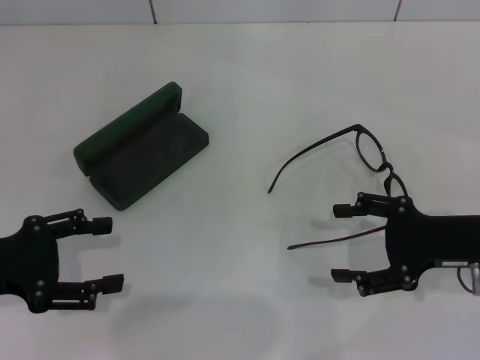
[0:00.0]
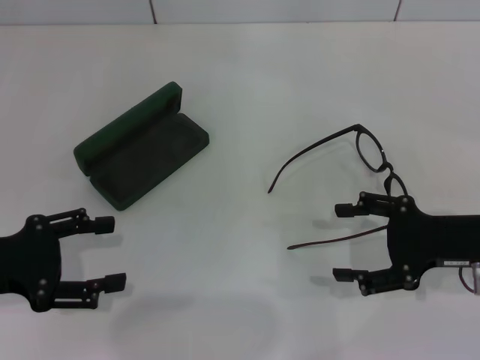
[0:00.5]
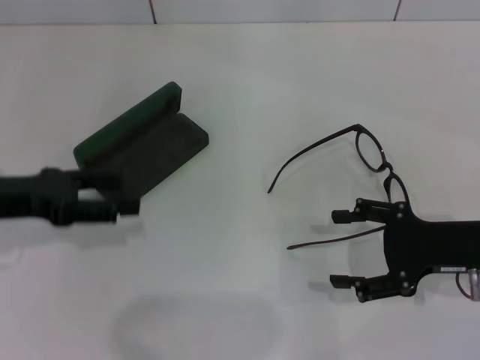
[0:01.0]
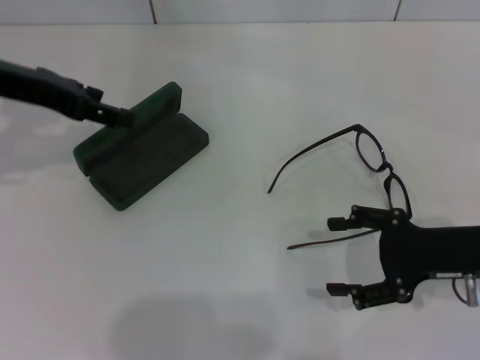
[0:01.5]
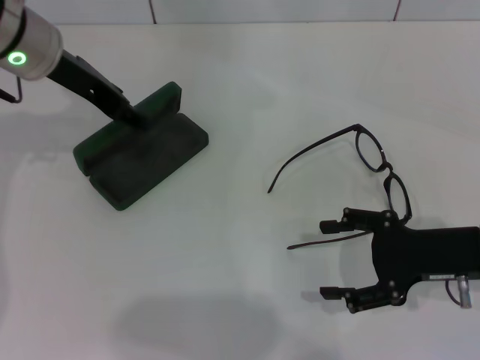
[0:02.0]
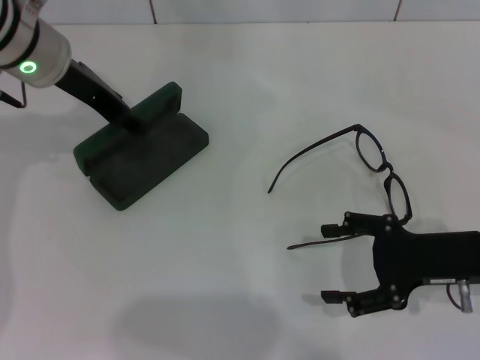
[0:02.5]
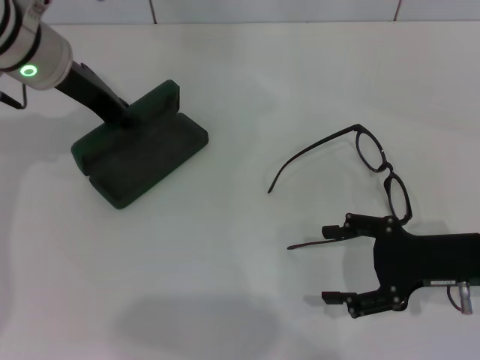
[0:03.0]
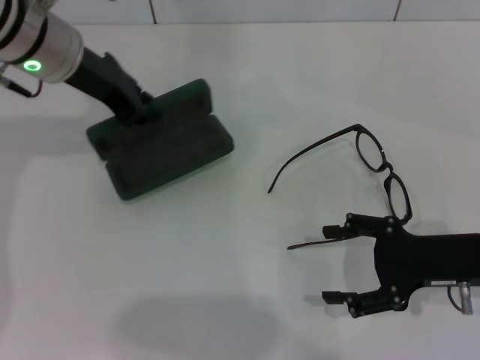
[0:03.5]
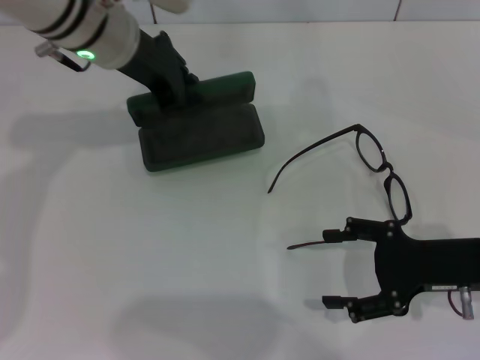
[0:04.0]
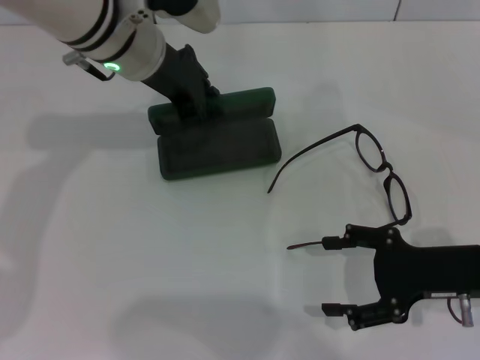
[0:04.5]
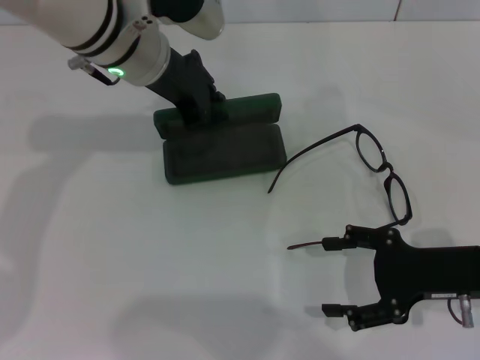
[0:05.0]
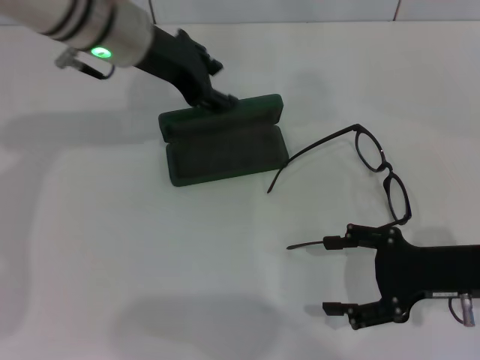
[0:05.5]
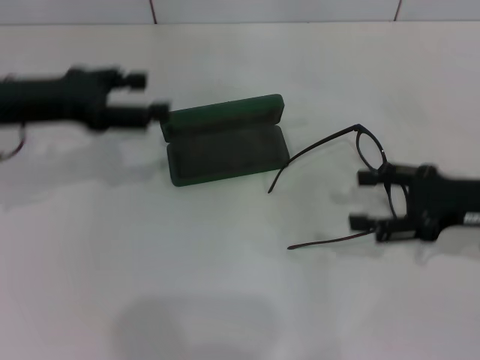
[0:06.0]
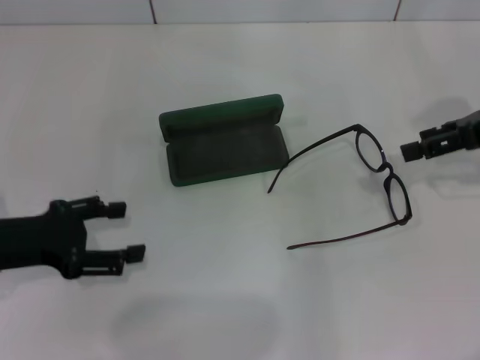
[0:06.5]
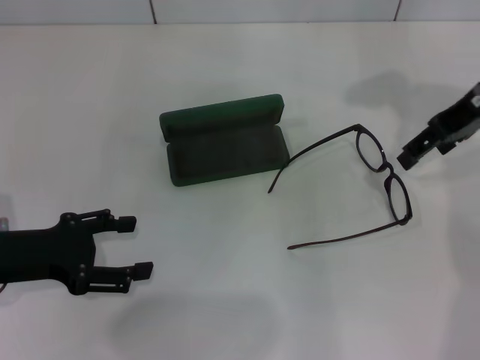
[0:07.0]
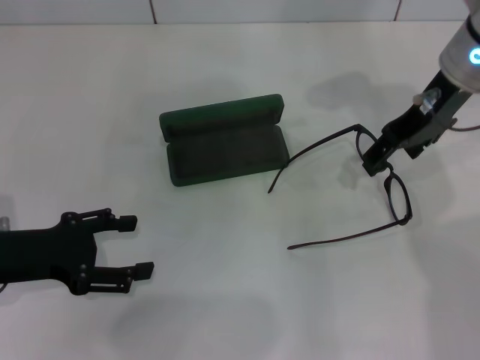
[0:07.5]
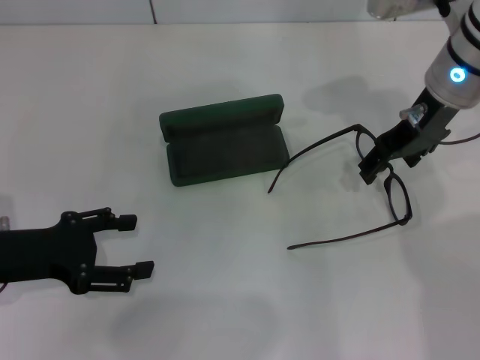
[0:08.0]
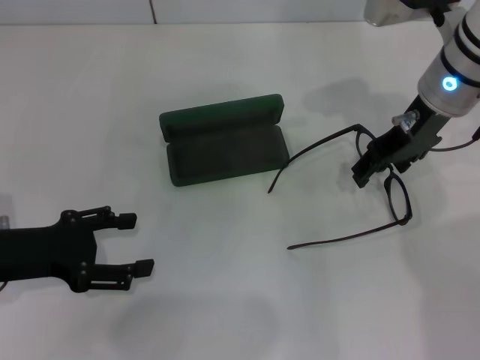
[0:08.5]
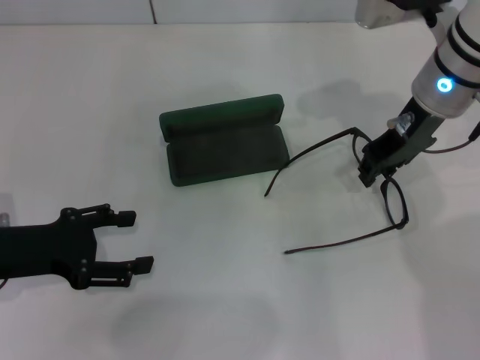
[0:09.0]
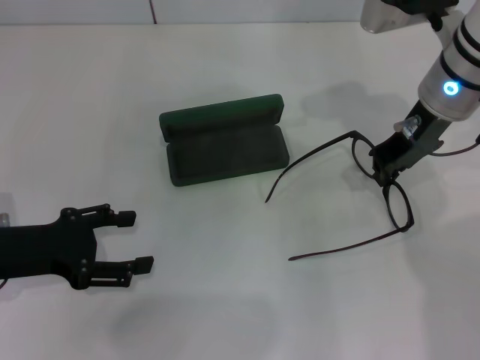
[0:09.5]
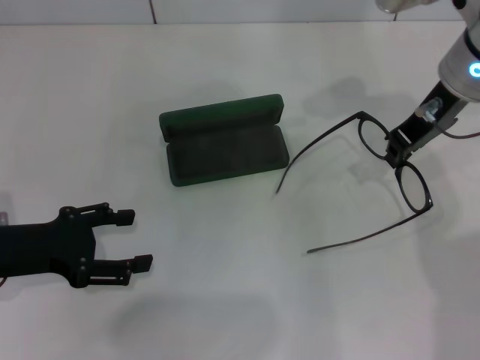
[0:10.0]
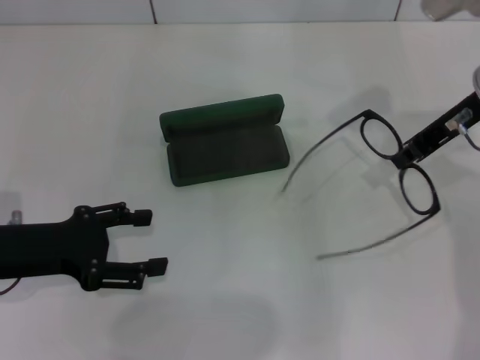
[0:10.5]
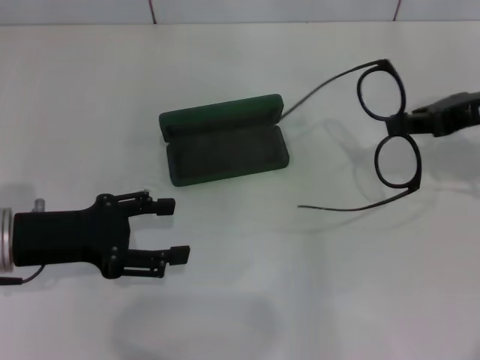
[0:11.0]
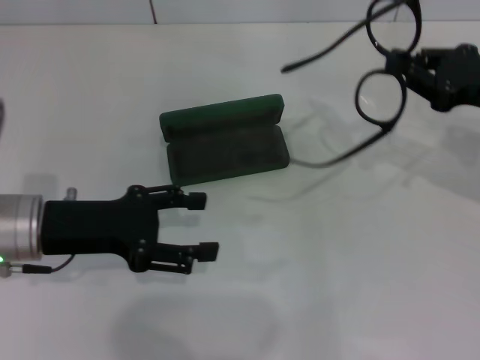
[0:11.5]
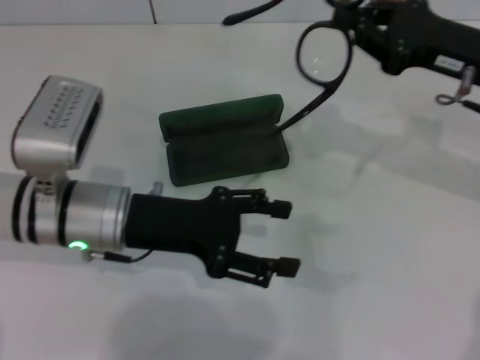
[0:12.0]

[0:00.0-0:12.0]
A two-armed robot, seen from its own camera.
Step, 0:00.0 to 0:02.5: Grab the glasses case with your left hand.
Step, 0:03.5 to 0:05.0: Place the glasses case in the center of the table with your left hand.
Step, 0:05.5 to 0:09.0: Grab the eyeglass frame with your right hand.
0:00.0 to 0:02.0: The left gripper travels forward, to the right and upward by about 25 cm.
0:02.0 to 0:04.0: The left gripper moves to the right, about 5 cm, and closes its fingers.
0:04.0 to 0:06.0: The right gripper shifts by roughly 5 cm, while the left gripper goes some 15 cm to the left and backward, and opens.
0:06.0 to 0:08.0: The left gripper is displaced backward and downward by about 15 cm. Meanwhile the right gripper goes about 20 cm forward, to the left and upward.
0:08.0 to 0:10.0: The right gripper closes its fingers.
0:10.0 to 0:12.0: The left gripper shifts some 10 cm to the right. The right gripper is displaced to the right by about 5 cm.

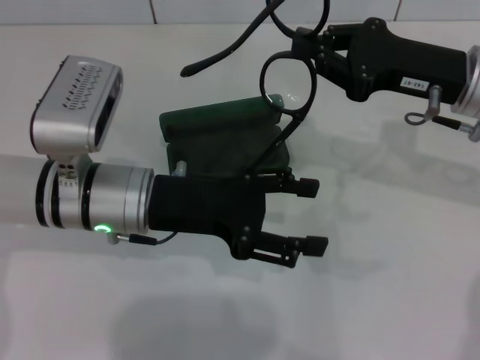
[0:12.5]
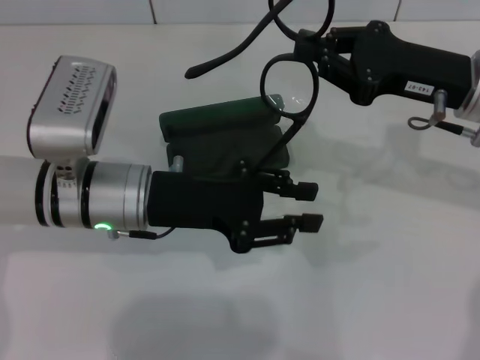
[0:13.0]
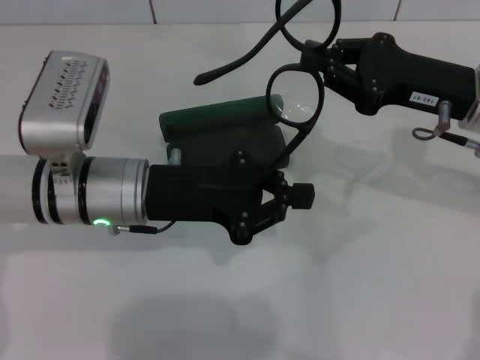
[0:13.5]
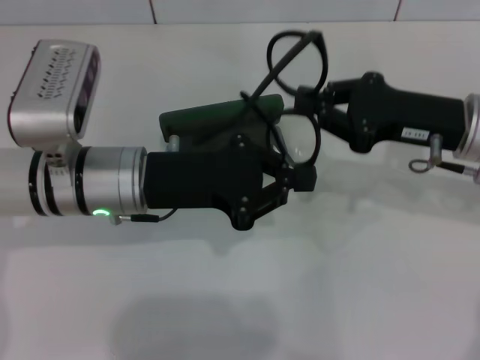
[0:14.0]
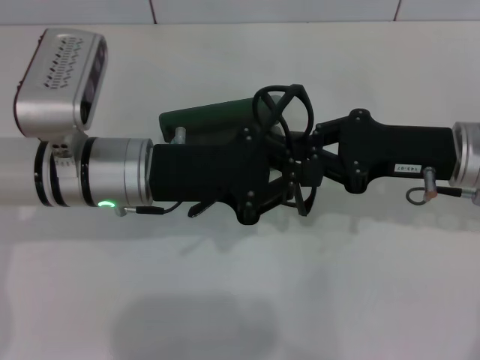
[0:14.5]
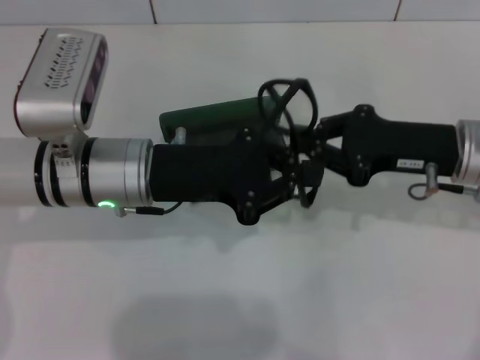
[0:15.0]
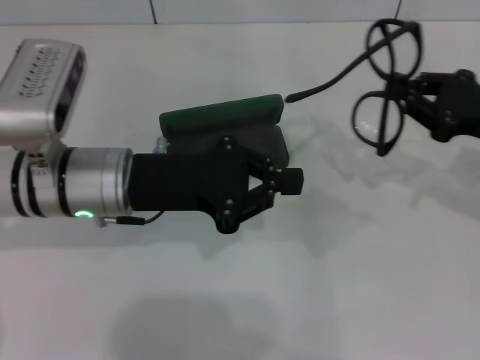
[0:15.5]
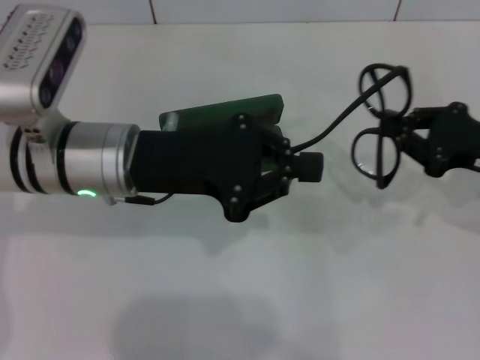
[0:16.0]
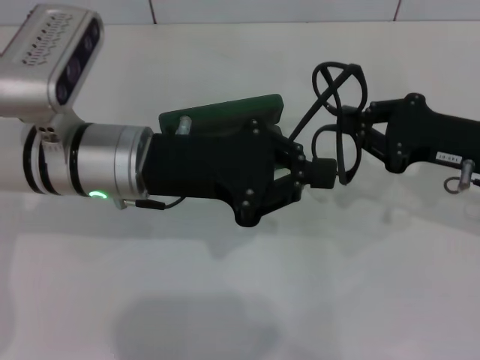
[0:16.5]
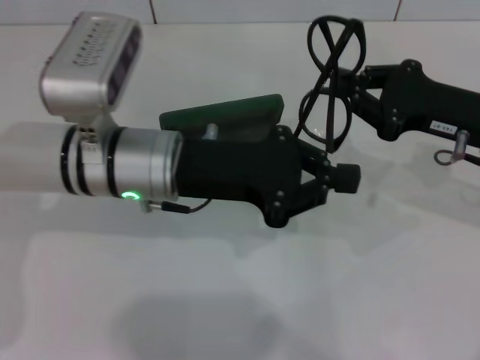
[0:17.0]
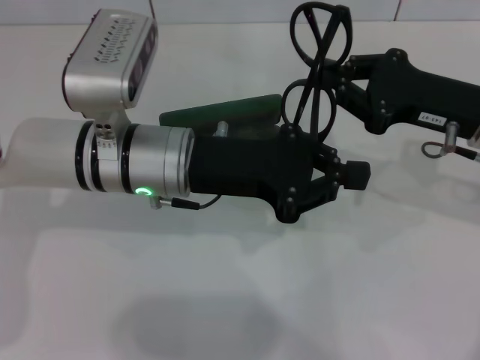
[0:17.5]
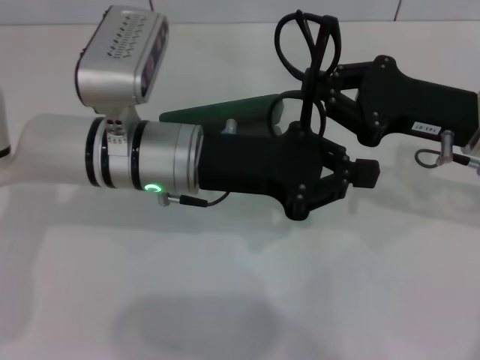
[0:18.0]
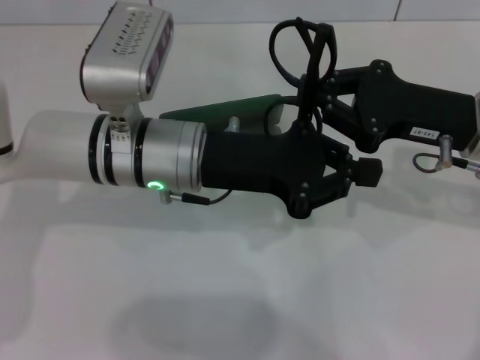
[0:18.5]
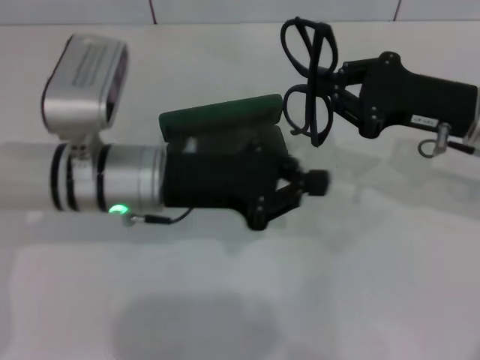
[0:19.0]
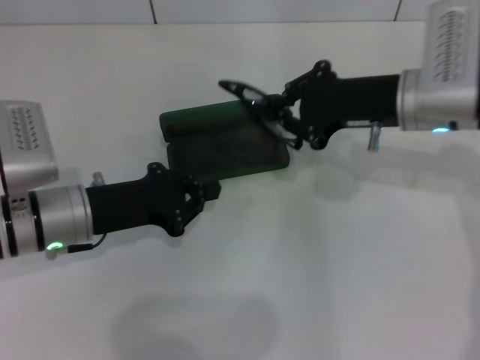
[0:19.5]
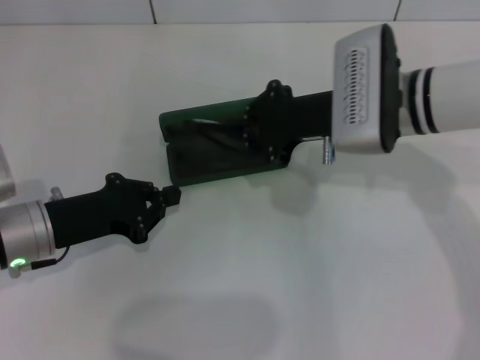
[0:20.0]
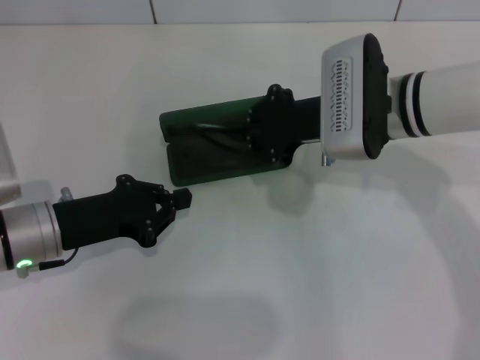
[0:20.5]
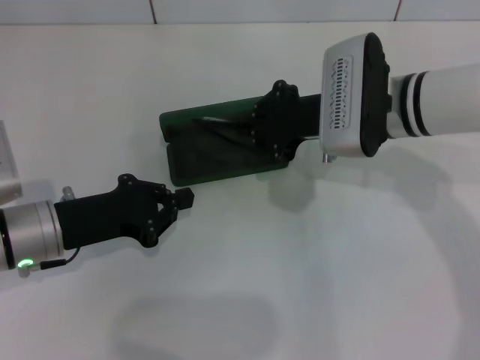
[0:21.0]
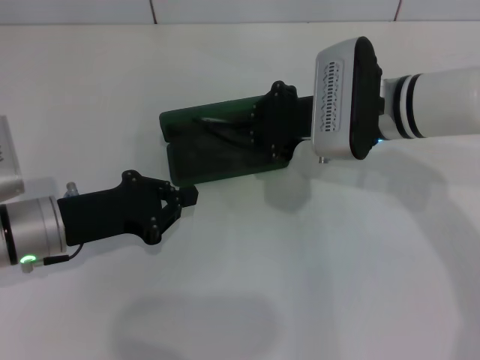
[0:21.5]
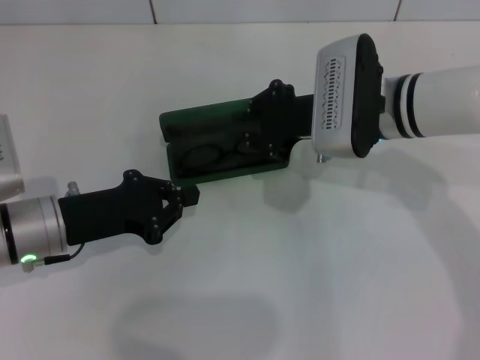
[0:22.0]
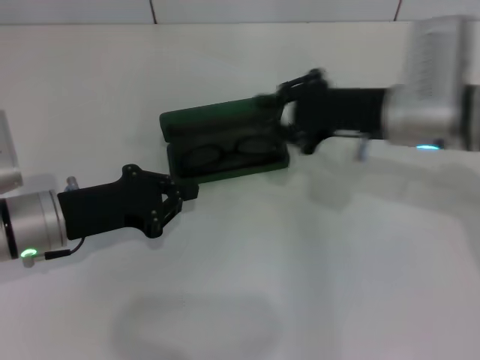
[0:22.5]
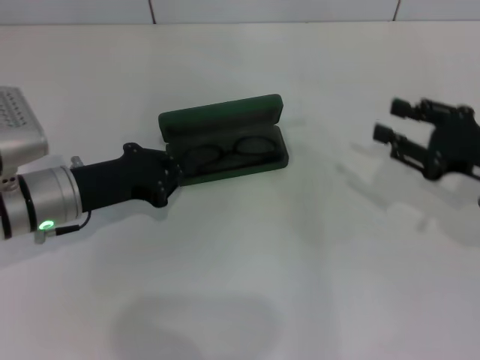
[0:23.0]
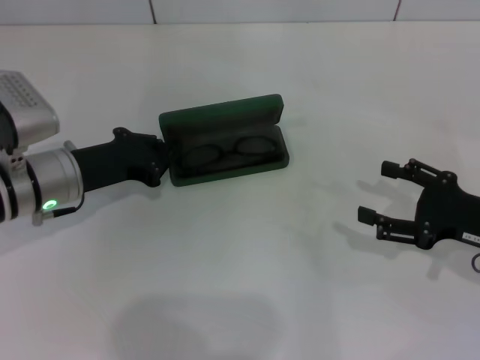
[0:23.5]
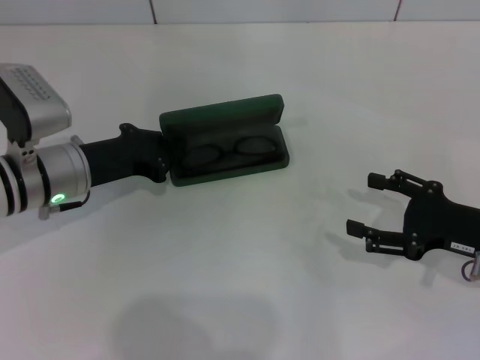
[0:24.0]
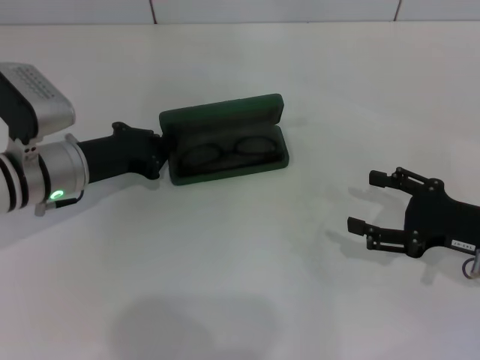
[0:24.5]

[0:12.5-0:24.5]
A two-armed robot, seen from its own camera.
Step, 0:12.5 to 0:18.0: Fold the frame with your left hand.
Step, 0:18.5 to 0:22.0: Put the glasses into the case with your right hand.
0:12.5 to 0:14.5: The left gripper closes.
0:18.5 to 0:20.5: The left gripper goes about 15 cm to the left and downward; the right gripper travels to the left by approximately 10 cm.
0:20.5 to 0:22.5: The right gripper moves about 5 cm.
0:22.5 to 0:24.5: The left gripper travels forward by about 5 cm. The right gripper is displaced to the right, backward and downward by roughly 15 cm, and opens.

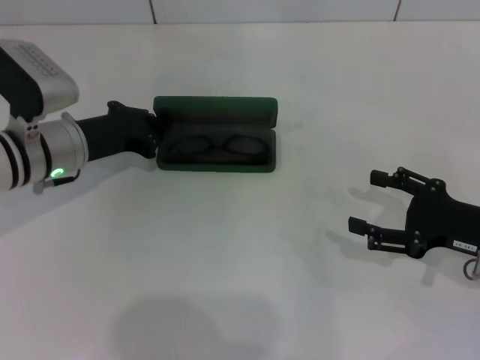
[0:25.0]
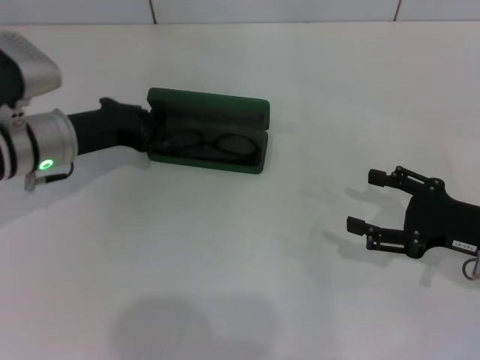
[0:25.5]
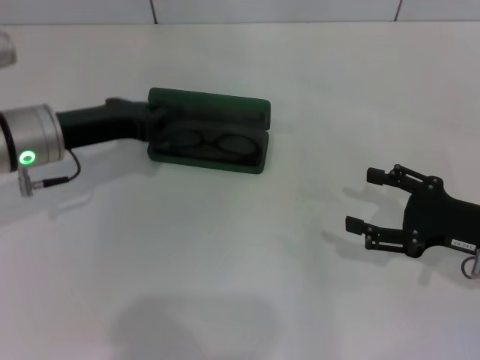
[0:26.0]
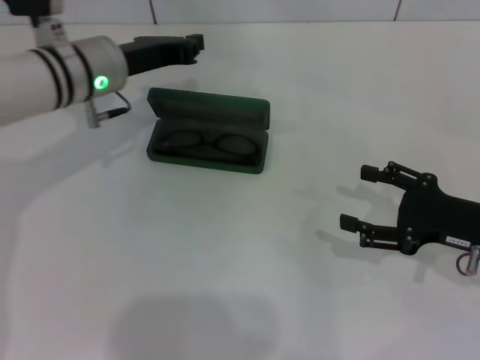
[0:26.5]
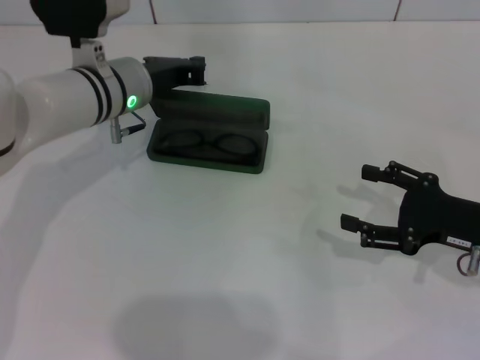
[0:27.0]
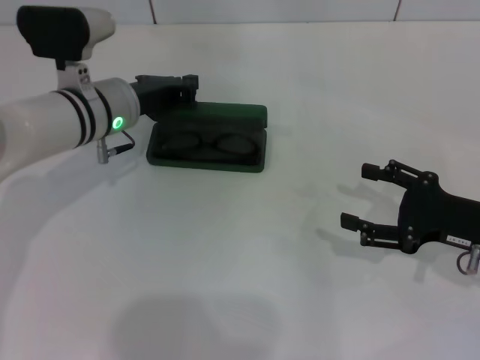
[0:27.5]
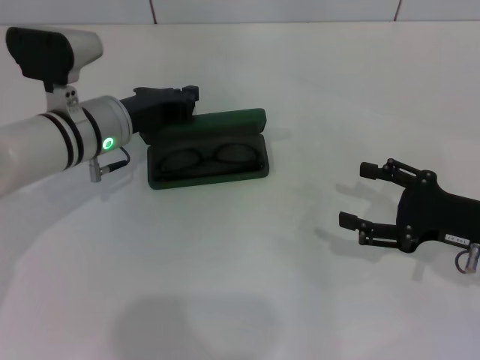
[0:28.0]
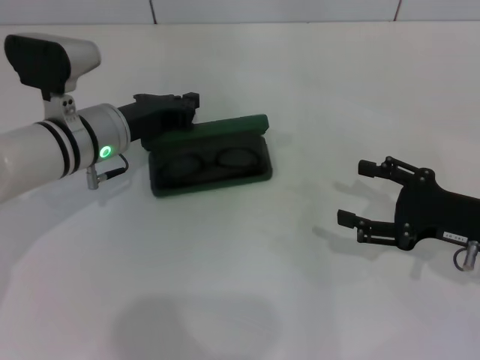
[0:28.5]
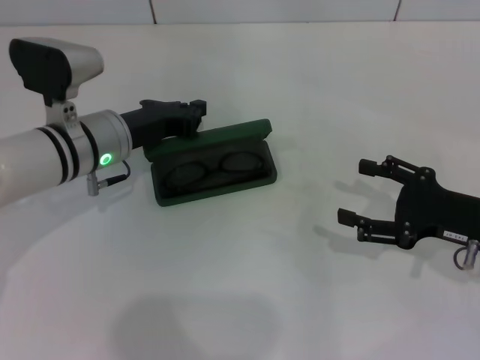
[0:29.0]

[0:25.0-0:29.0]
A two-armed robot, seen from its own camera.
0:25.0 to 0:27.0: The left gripper is displaced to the right and forward by some 10 cm.
0:27.0 to 0:29.0: The left gripper goes about 5 cm backward.
